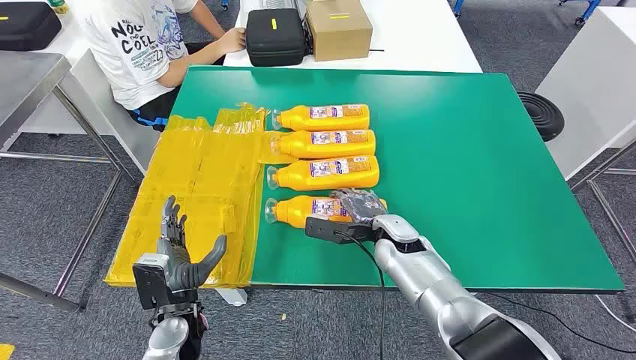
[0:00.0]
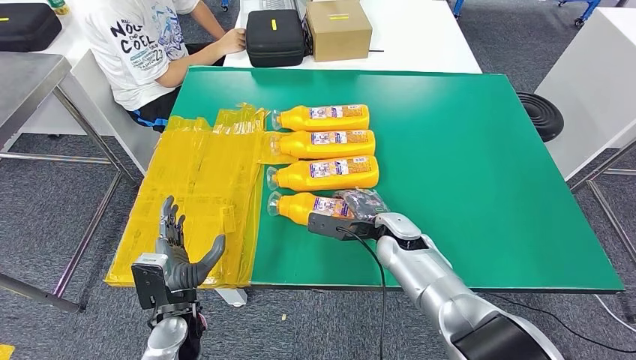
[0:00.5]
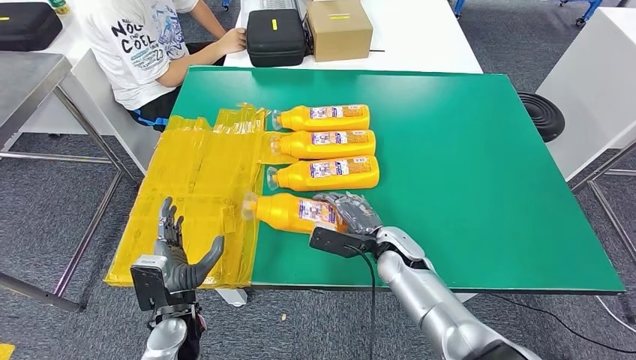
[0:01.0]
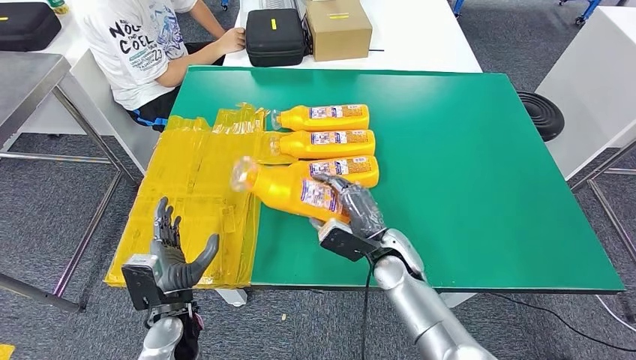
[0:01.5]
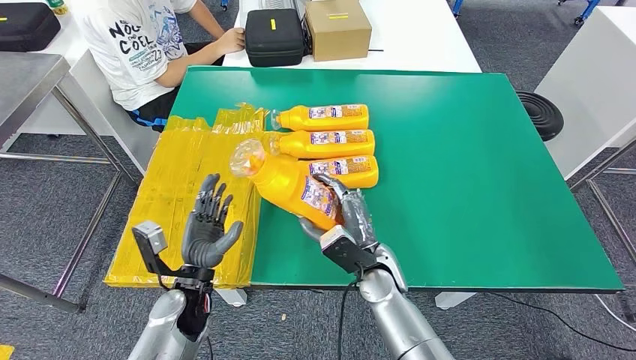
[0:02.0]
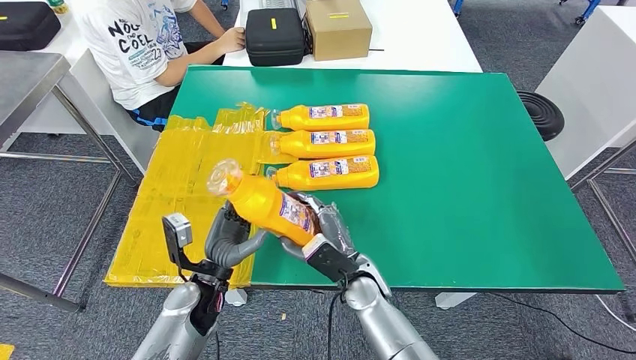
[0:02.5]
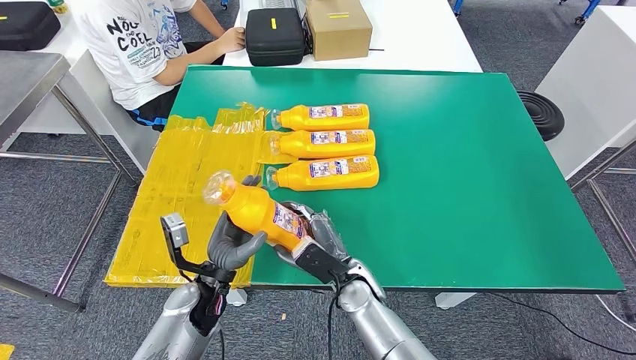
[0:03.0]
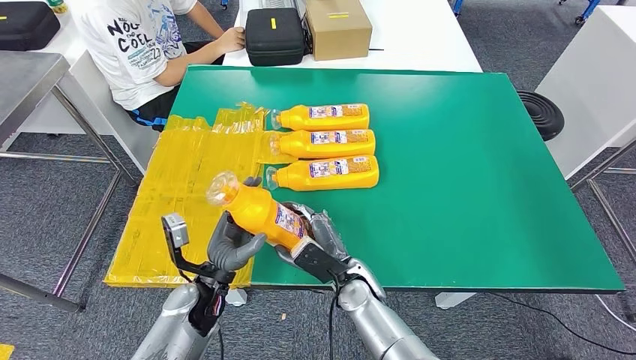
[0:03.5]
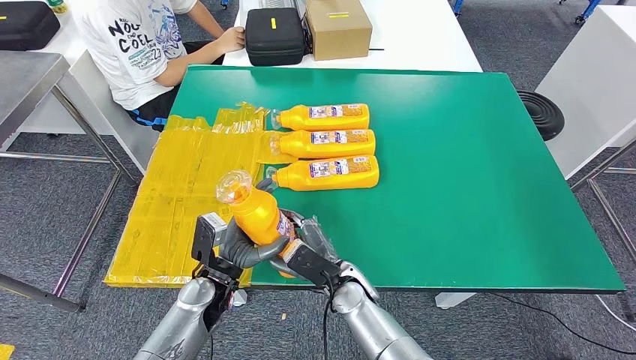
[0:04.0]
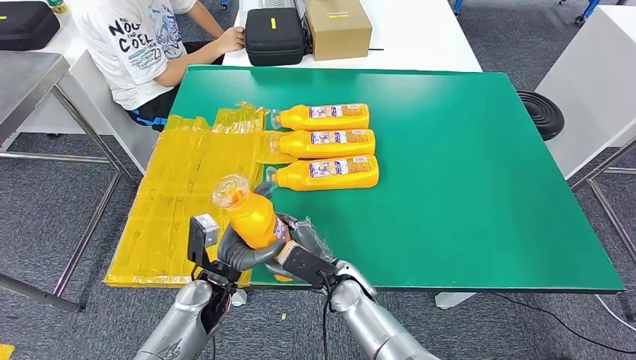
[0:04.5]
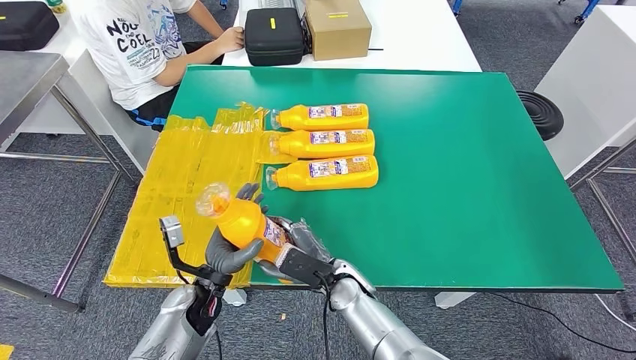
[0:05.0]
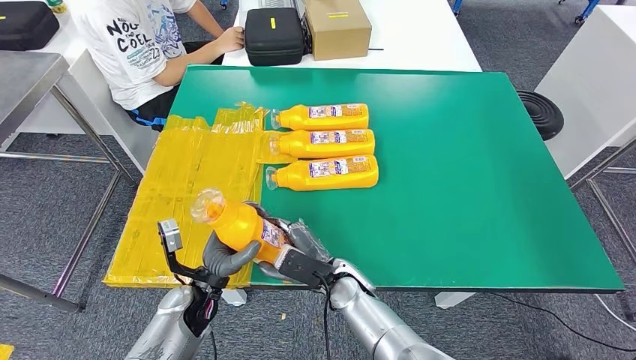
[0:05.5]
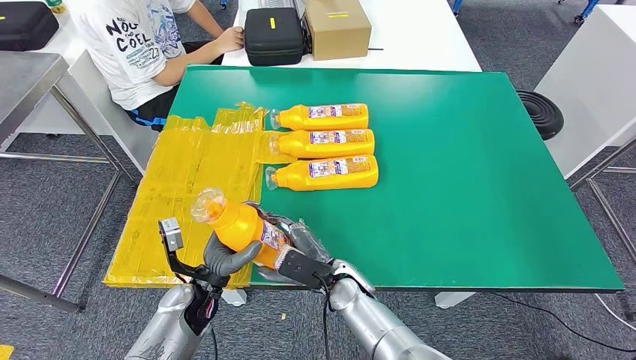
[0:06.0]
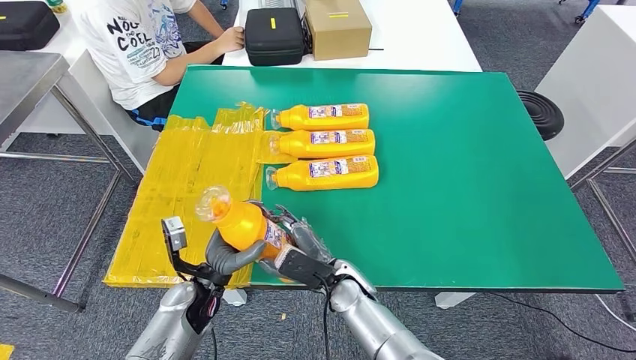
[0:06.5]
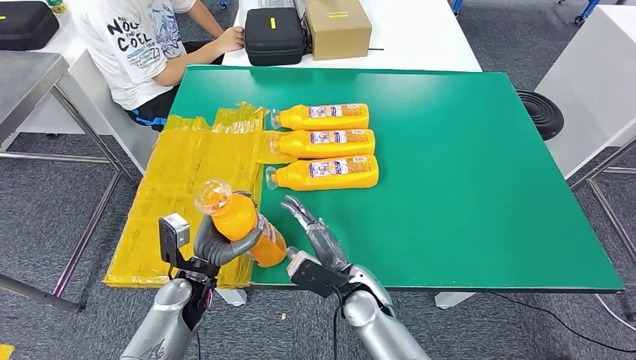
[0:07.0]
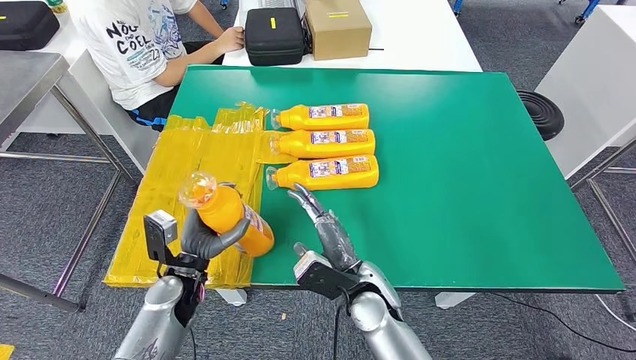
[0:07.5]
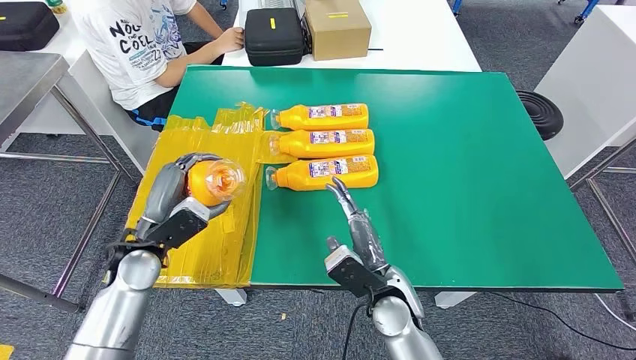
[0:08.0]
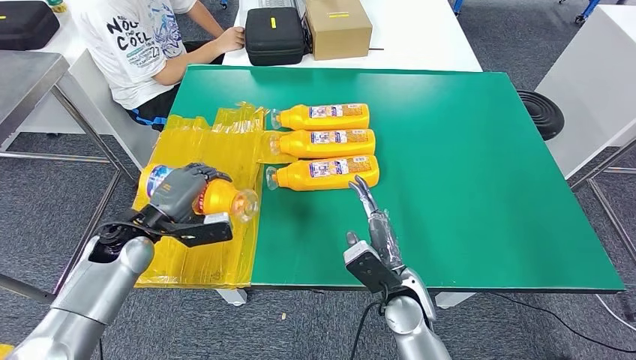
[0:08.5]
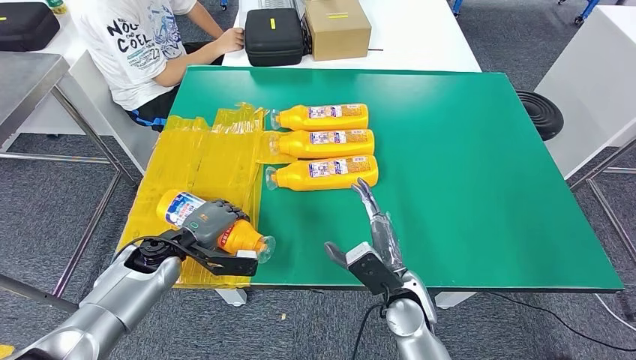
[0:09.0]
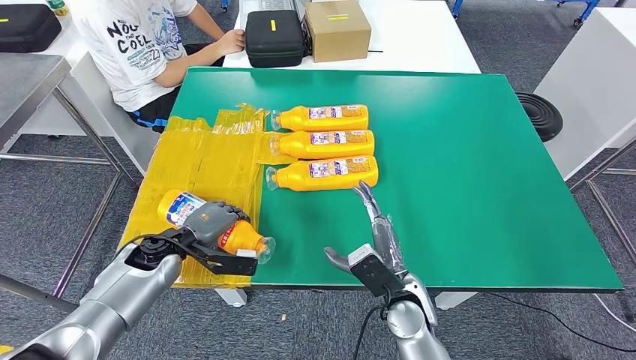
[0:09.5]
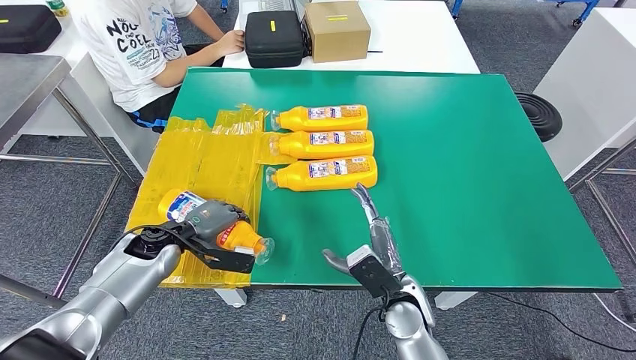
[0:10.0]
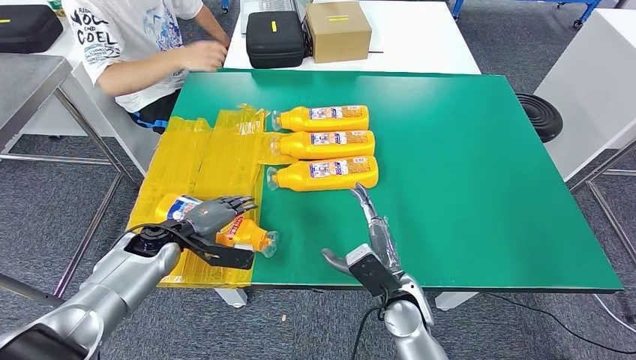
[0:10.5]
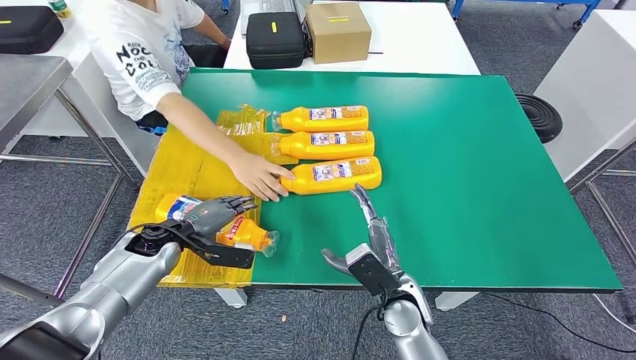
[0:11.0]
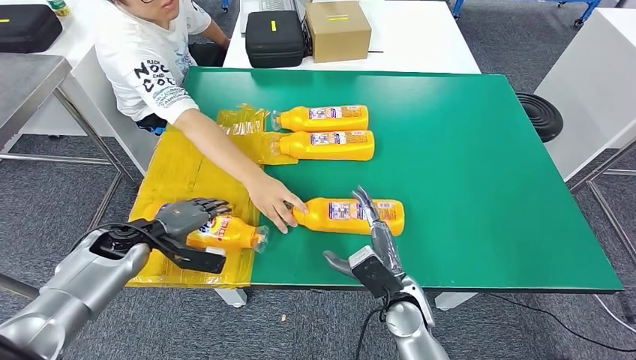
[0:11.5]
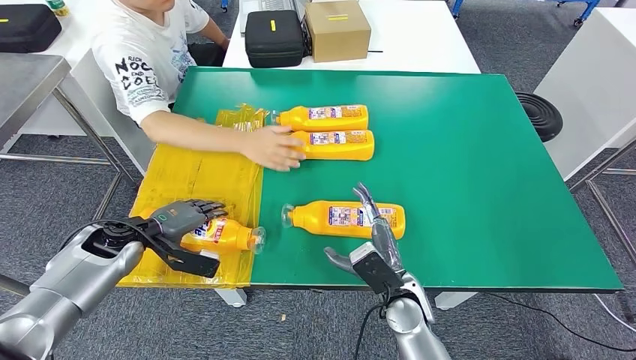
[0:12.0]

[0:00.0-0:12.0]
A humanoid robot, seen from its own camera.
Step, 0.0 to 3.0 s: Take the fast-moving consumer goods bottle from the table.
Step, 5.0 to 11.5 s: Flip the fast-moving consumer goods bottle to the front side.
2.0 to 4.0 s: The right hand moves about 5 cm.
6.0 to 8.0 s: The right hand moves to the right and upward, some 10 cm, while the left hand moves upward and to the left, some 15 cm.
8.0 to 10.0 s: The left hand goes approximately 5 cm downward.
10.0 to 12.0 s: The left hand travels to the left by roughly 5 cm.

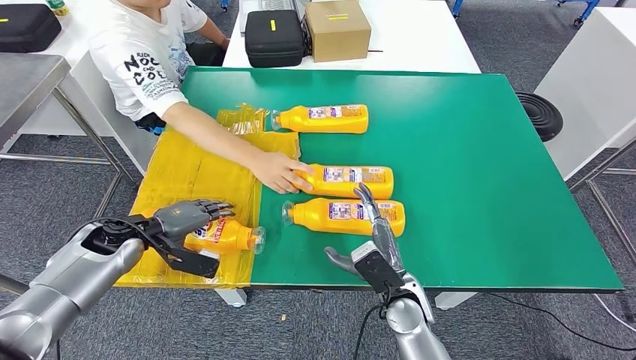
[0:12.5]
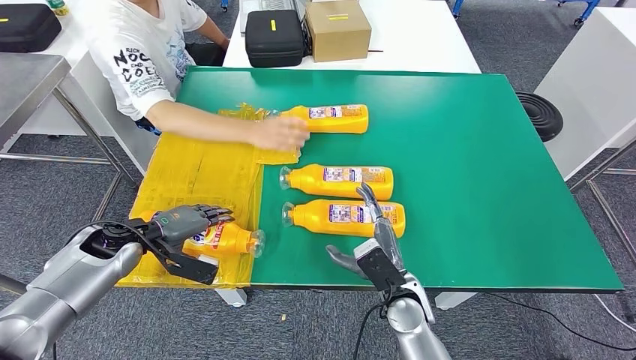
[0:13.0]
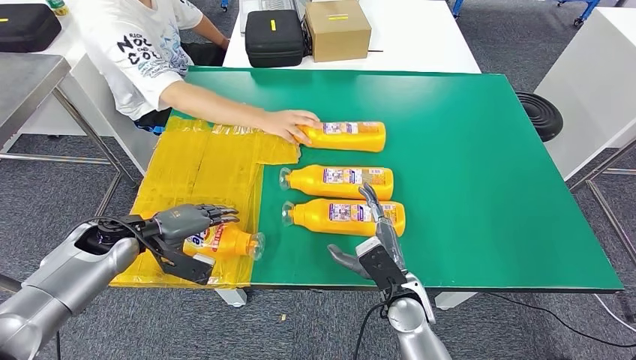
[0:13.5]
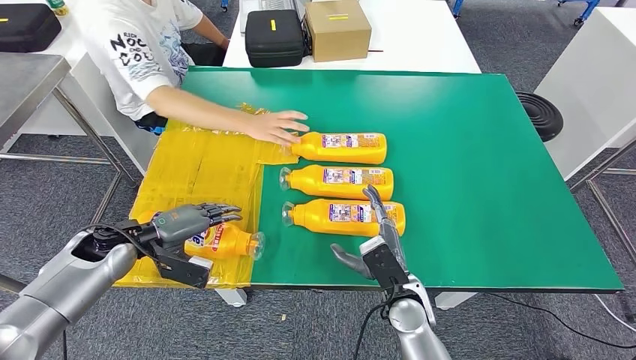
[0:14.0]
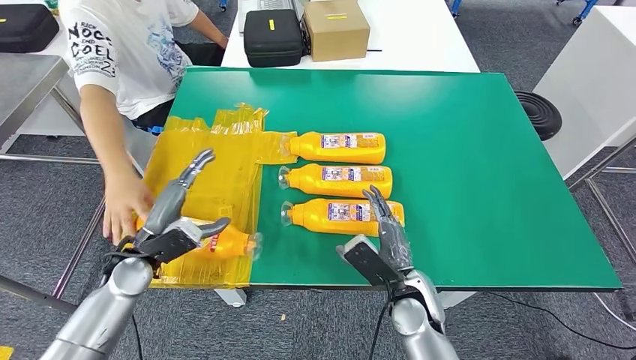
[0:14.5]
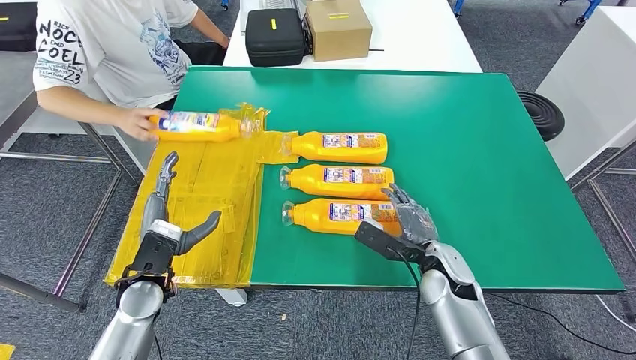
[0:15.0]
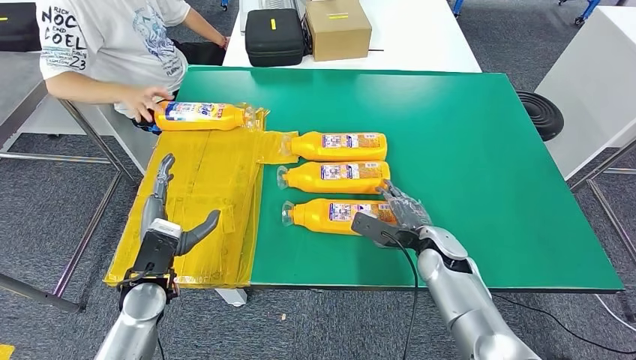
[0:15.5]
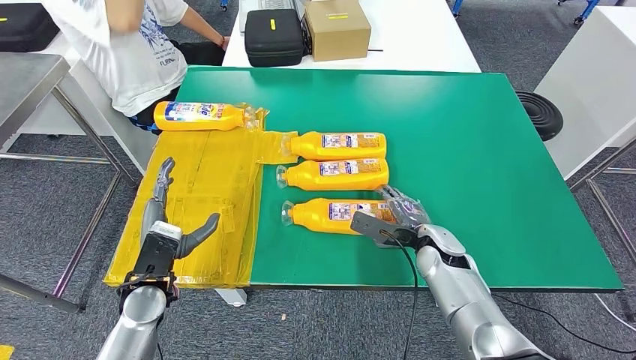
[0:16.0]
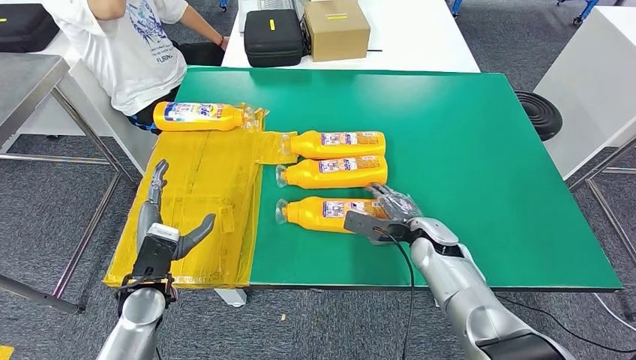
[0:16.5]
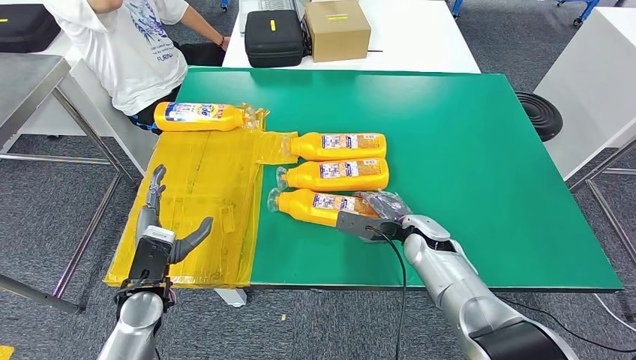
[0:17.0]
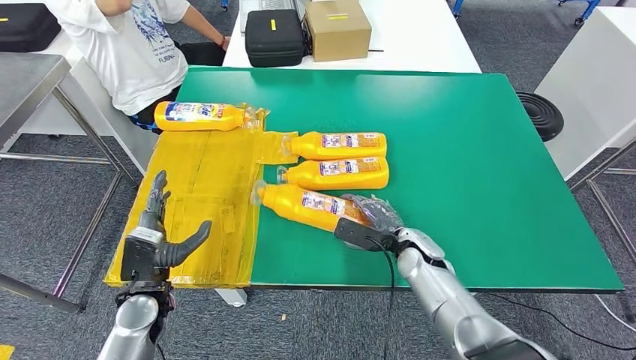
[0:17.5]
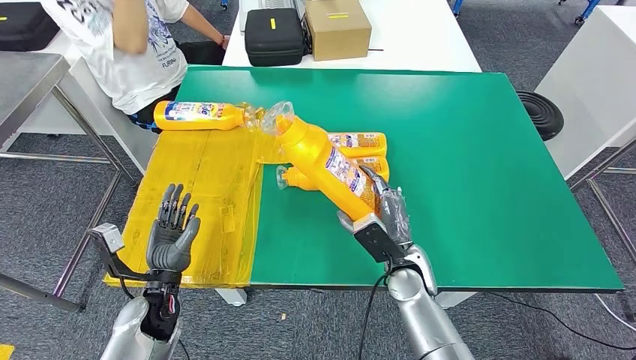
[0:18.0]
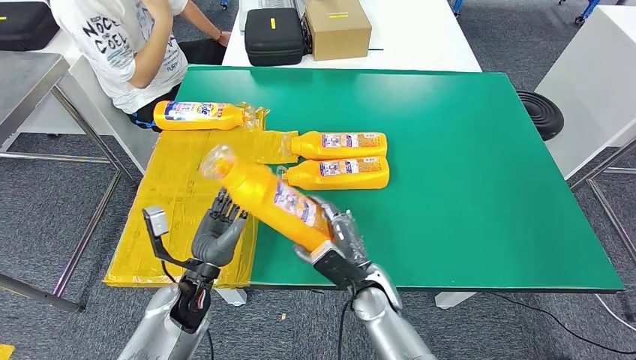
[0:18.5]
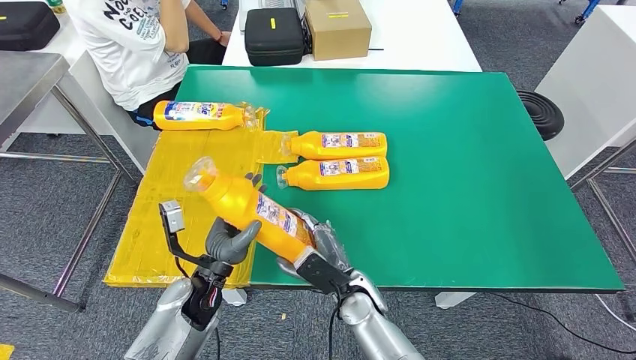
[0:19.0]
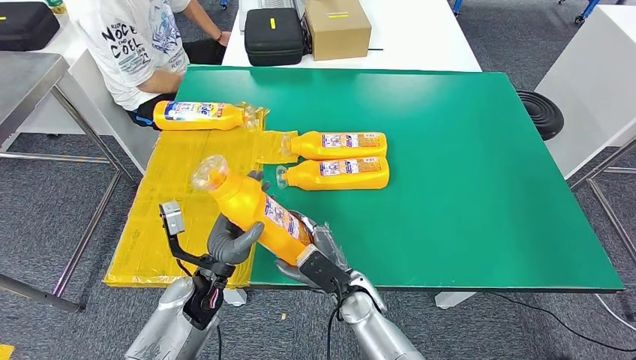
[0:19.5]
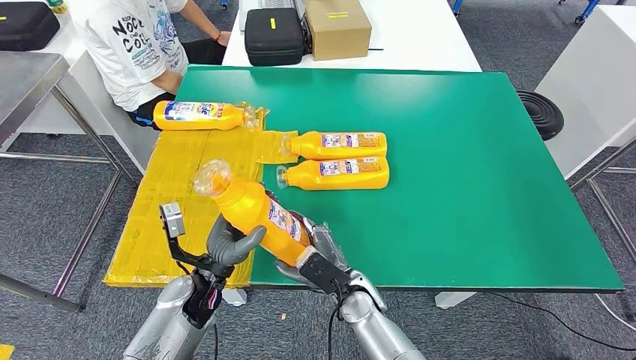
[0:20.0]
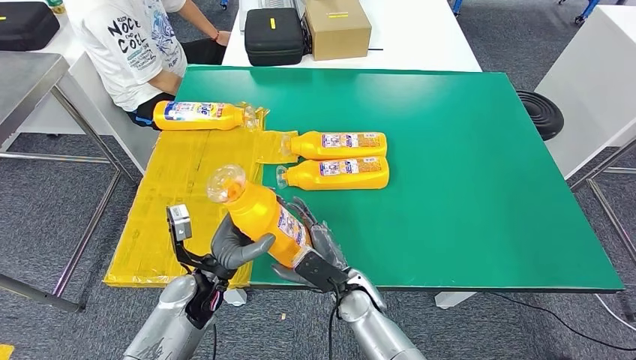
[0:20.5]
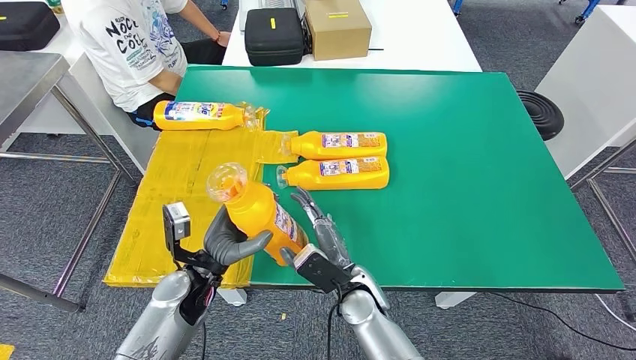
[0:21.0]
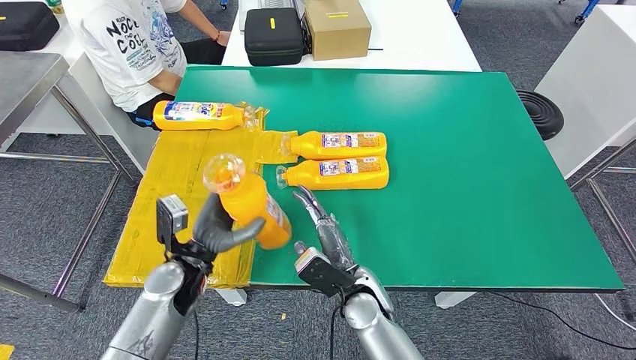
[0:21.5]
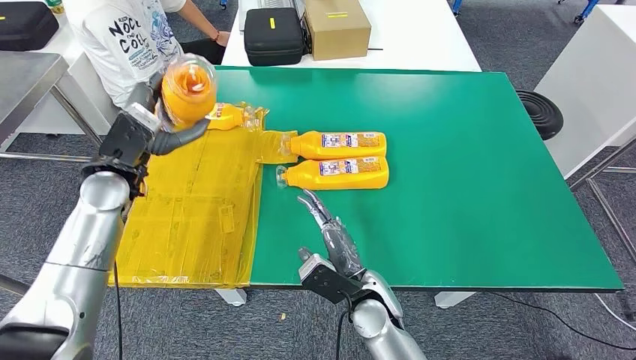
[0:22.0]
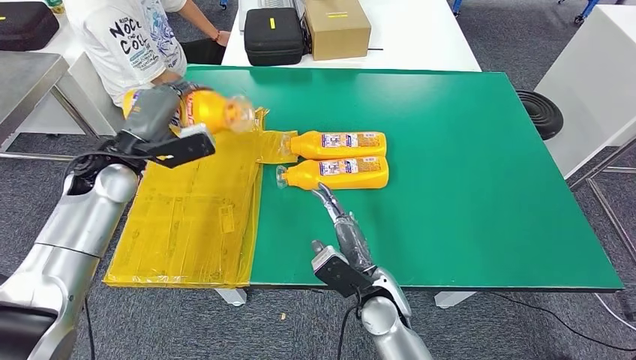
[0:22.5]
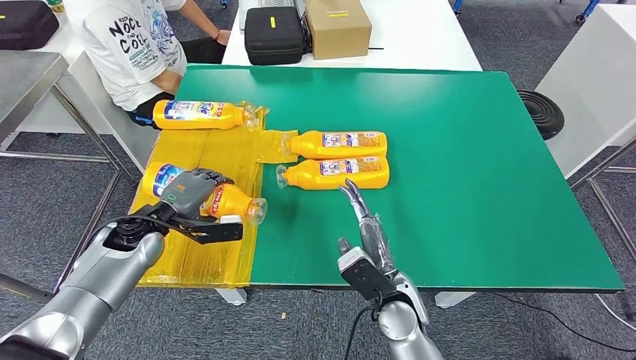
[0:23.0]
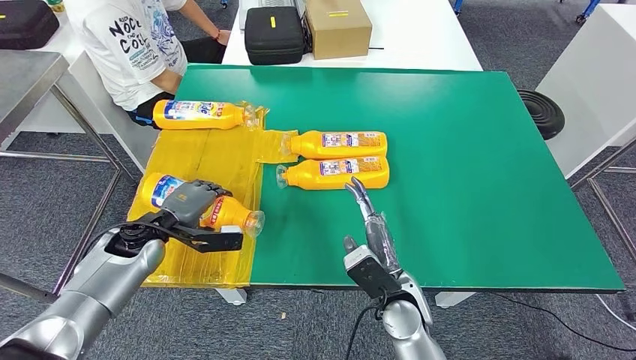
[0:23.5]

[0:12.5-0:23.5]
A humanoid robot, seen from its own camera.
Step, 16.5 to 19.0 s: Pick up the fast-moving consumer goods bottle from the table.
16.0 to 18.0 s: The right hand heads to the left and backward, covering some 10 cm.
18.0 to 20.0 s: The right hand goes roughly 10 cm to the left. The left hand travels to the right by approximately 10 cm.
21.5 to 23.5 s: The left hand travels to the left and forward by roughly 10 cm, and reaches about 15 cm upward, then returns; the right hand heads to the right, covering some 5 cm.
